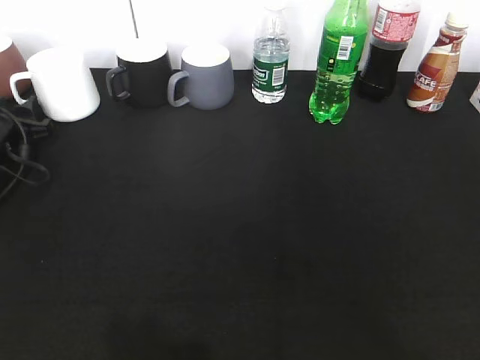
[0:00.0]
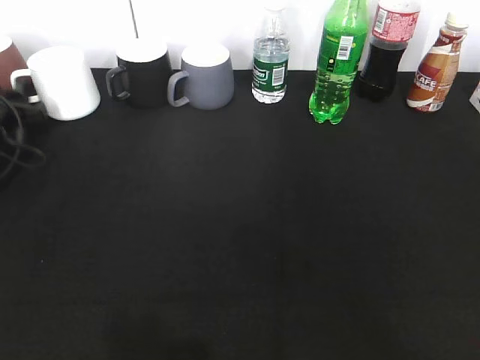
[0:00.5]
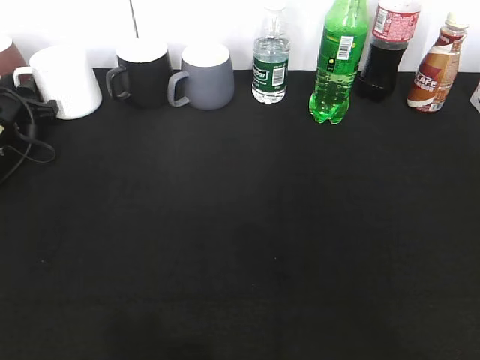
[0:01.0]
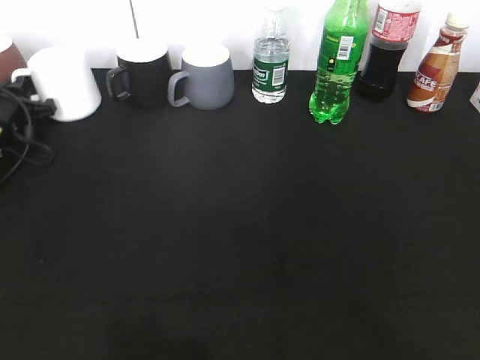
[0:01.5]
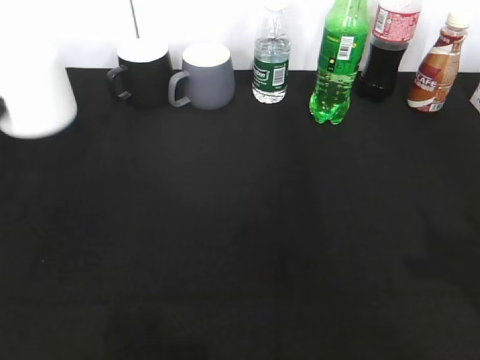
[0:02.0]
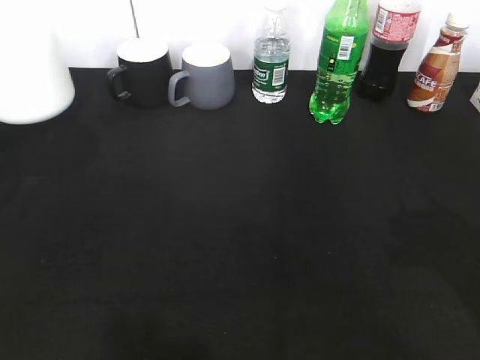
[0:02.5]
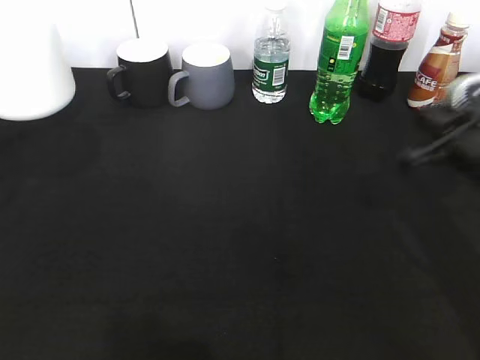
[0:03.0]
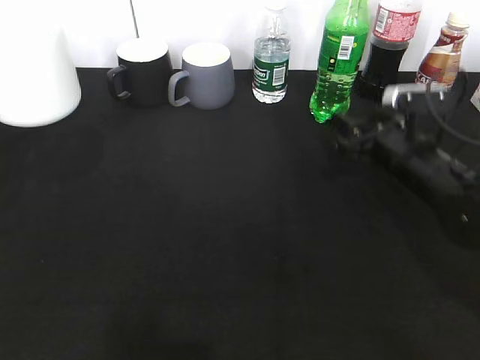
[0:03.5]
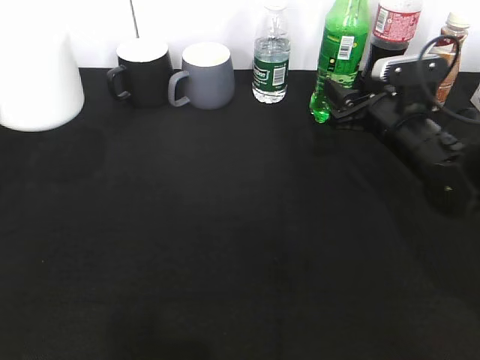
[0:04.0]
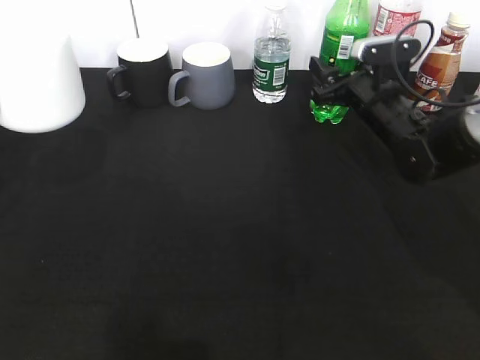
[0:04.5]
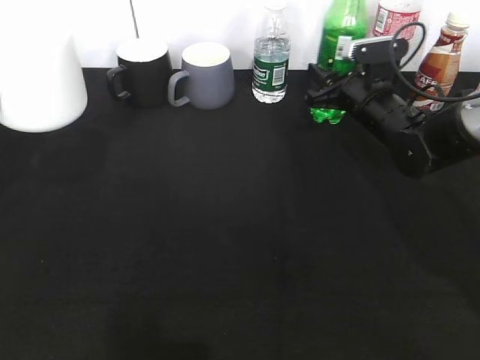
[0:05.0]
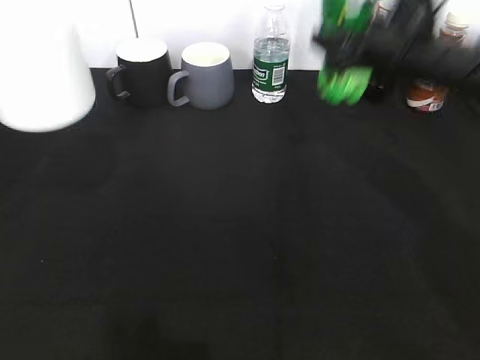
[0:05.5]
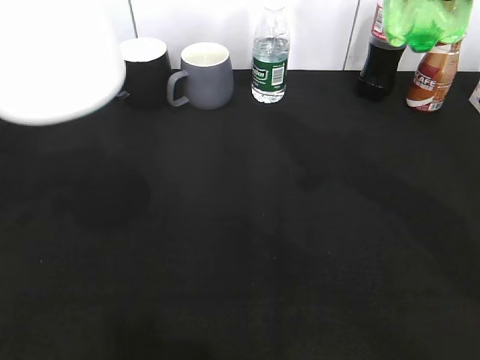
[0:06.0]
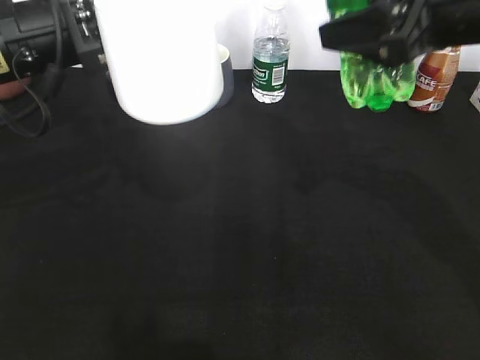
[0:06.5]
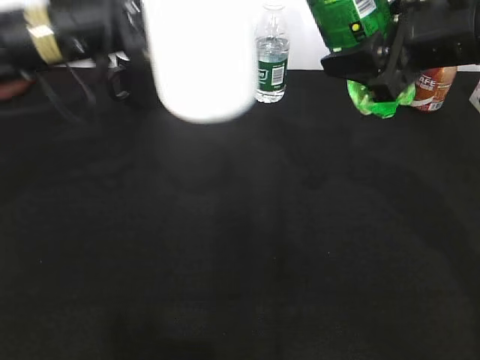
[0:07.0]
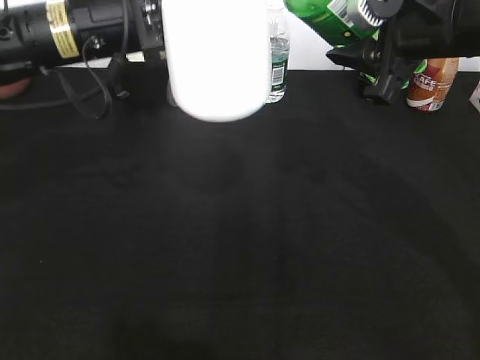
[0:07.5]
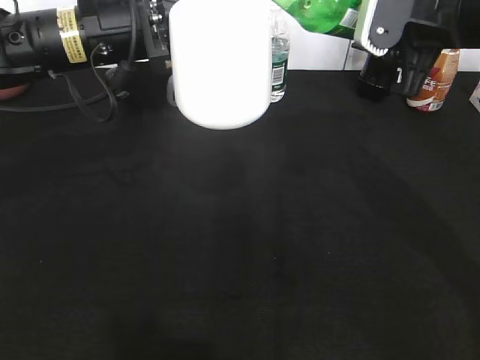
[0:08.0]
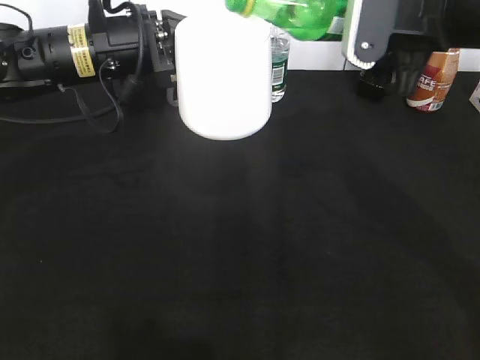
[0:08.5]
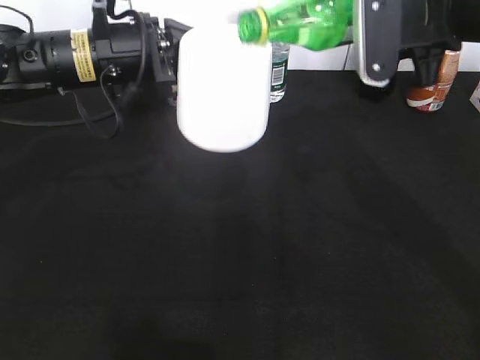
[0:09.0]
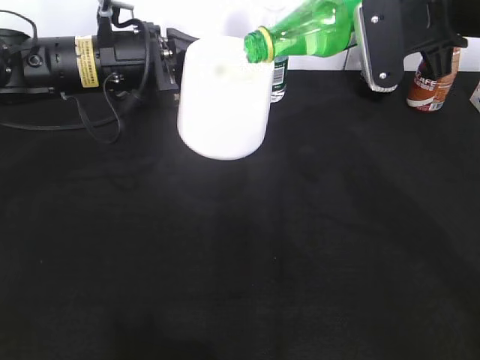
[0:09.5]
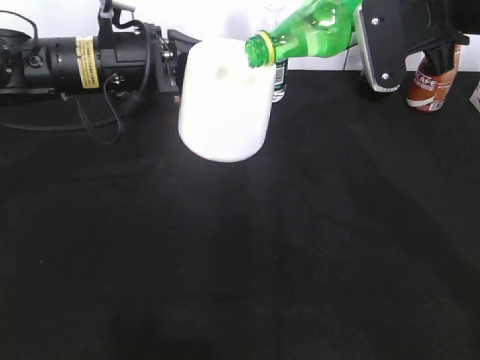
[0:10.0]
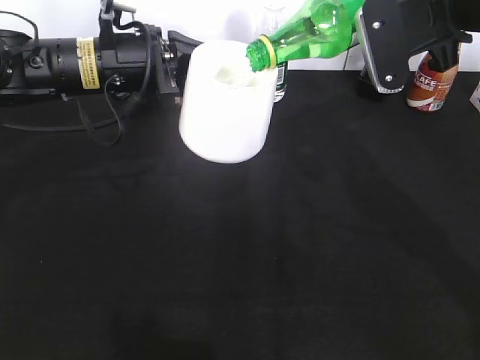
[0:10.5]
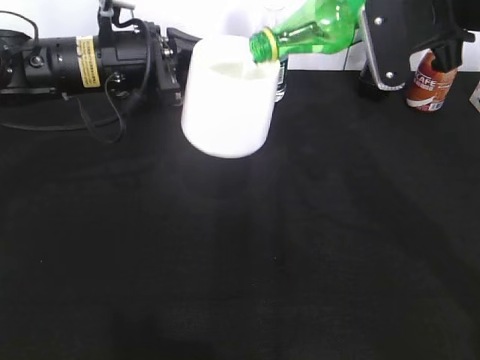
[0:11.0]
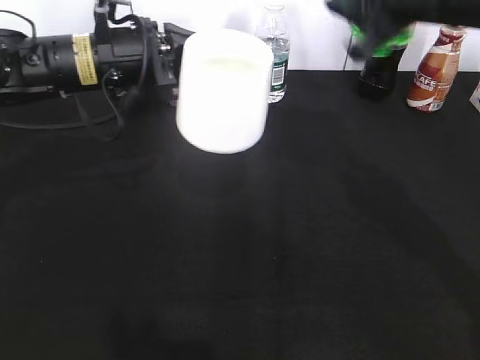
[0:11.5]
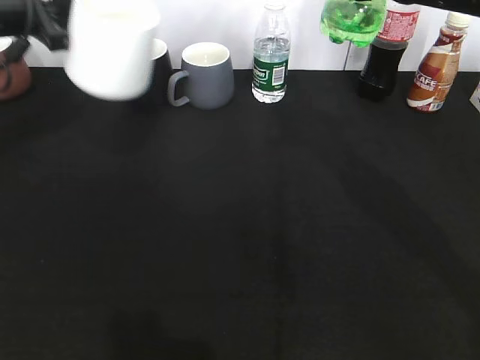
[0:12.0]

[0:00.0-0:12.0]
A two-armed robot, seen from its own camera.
Step, 0:02.5 to 0:05.0: Grasp the bottle with sprite with right gripper.
Step, 0:05.5 to 0:09.5: Pour the sprite from bottle to cup with right gripper.
0:00.0 to 0:02.0: The left gripper is displaced upward and backward by about 15 cm, and closes its fingers.
0:02.0 to 0:04.0: The right gripper moves forward and downward, approximately 35 cm, and opens; the left gripper moves some 5 cm.
0:04.0 to 0:06.0: The left gripper travels upward by approximately 5 cm, while the right gripper travels upward and backward by about 30 cm.
0:06.0 to 0:08.0: The left gripper shifts some 20 cm forward, to the right and downward; the right gripper is displaced downward and forward by approximately 10 cm.
0:10.0 to 0:12.0: The left gripper heads to the left, covering approximately 15 cm.

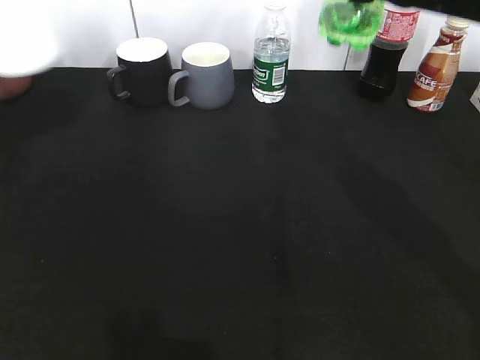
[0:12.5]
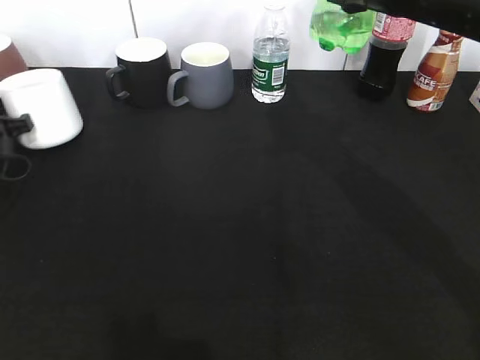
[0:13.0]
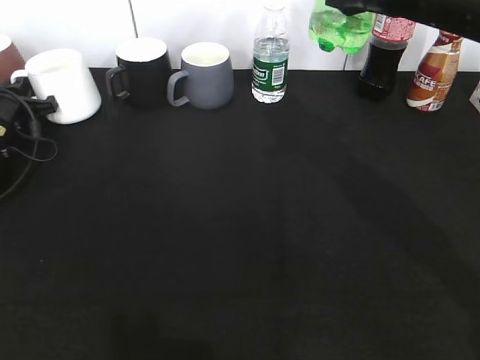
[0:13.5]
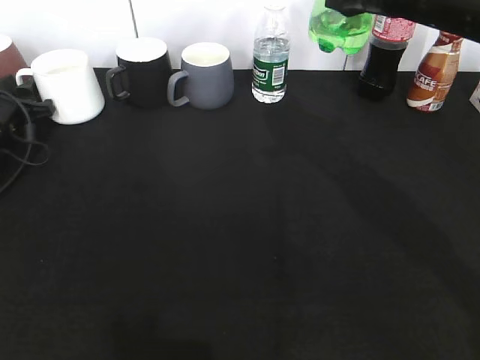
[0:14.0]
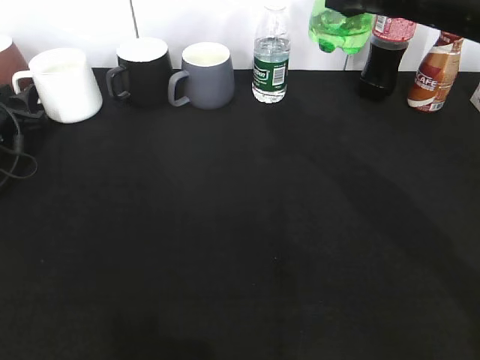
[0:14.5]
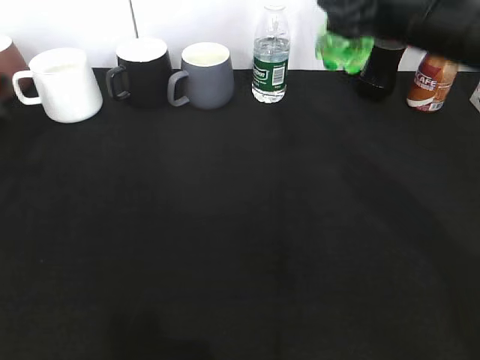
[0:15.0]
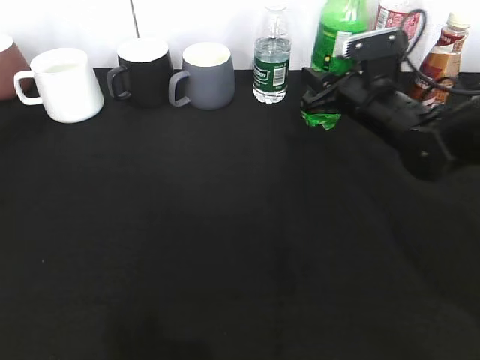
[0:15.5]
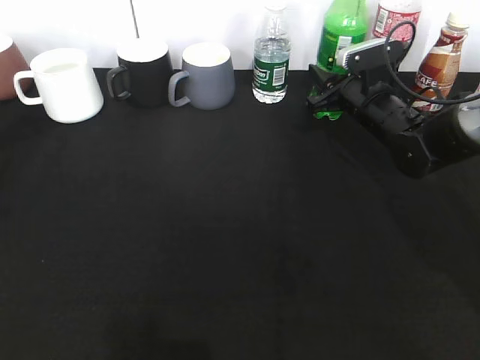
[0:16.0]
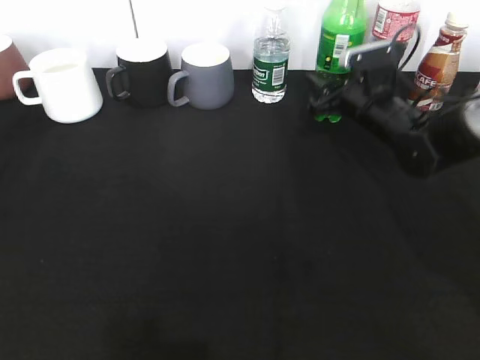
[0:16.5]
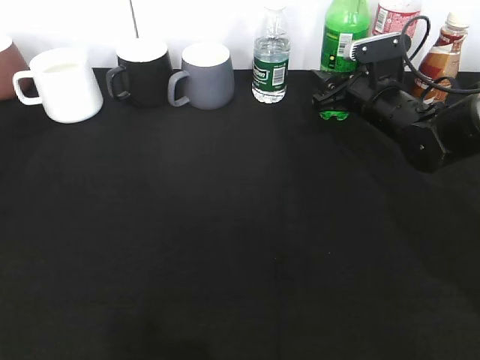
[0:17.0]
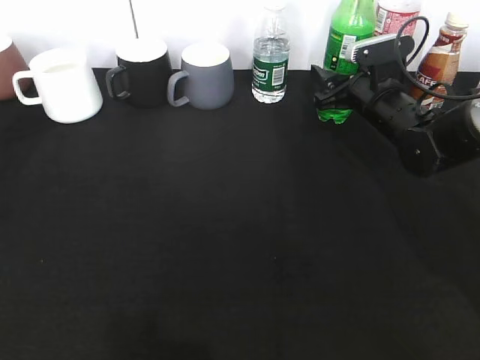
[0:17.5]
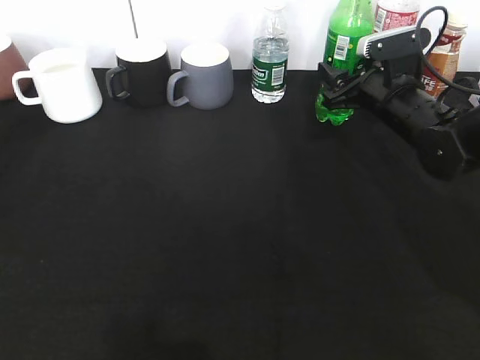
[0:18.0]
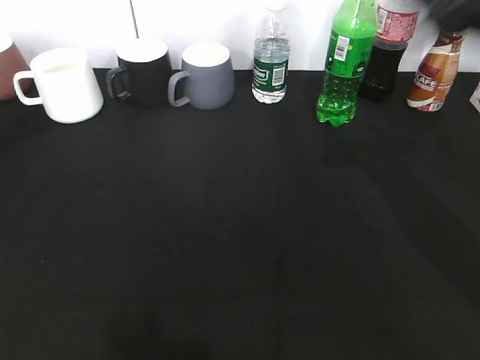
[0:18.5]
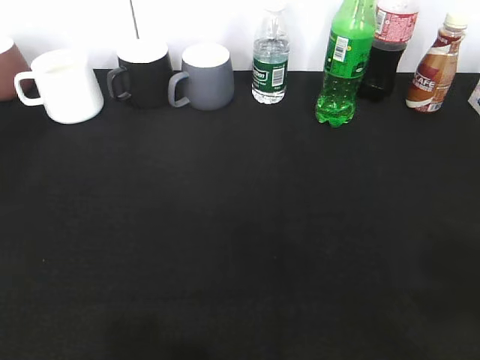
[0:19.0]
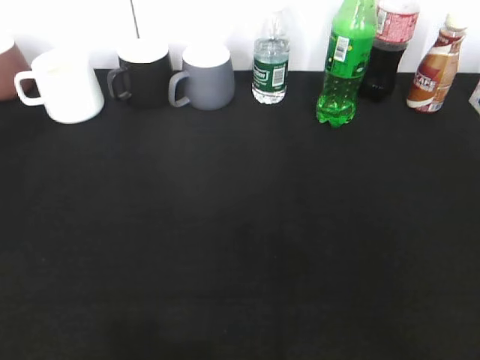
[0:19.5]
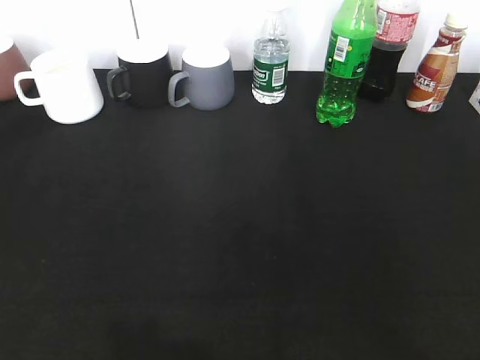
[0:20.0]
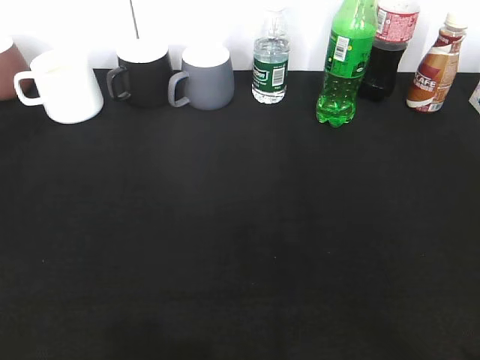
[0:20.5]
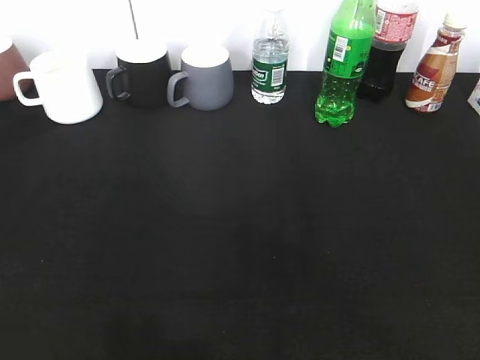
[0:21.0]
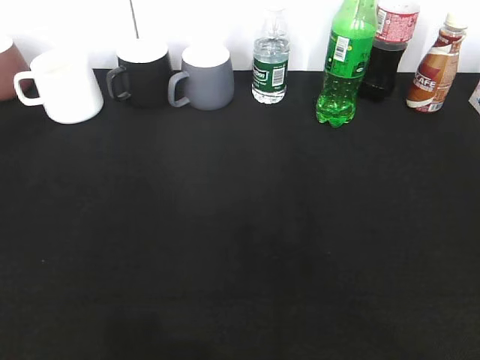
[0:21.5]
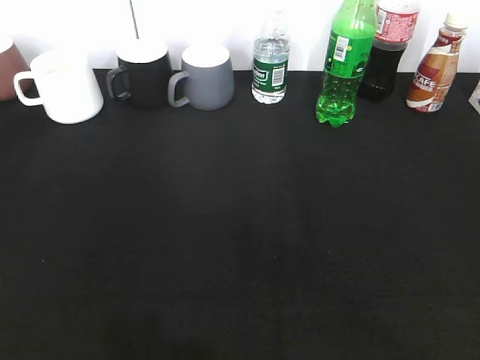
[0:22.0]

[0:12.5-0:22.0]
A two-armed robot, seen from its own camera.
Step, 0:12.5 to 0:14.5: Place the white cup on the table with left gripper.
Step, 0:15.5 to 0:18.5: Place the sprite bottle on the table with right gripper.
0:12.5 to 0:14.5: The left gripper is displaced downward and forward by some 15 cm, and opens up.
0:14.5 to 0:16.5: The left gripper goes about 35 cm backward and upward, while the right gripper shifts roughly 25 cm downward and forward.
0:16.5 to 0:18.0: The grippers stay close to where they were, moving slightly.
0:18.0 to 0:20.0: The right gripper is displaced backward by about 40 cm, and closes up; the left gripper goes approximately 15 cm backward, and closes and opens again.

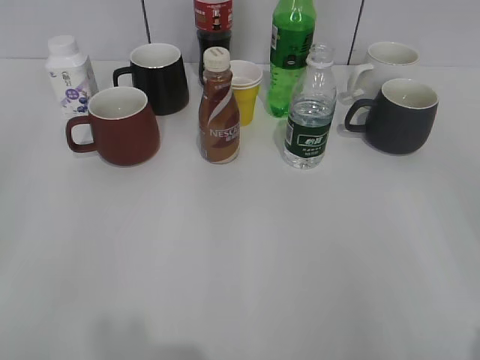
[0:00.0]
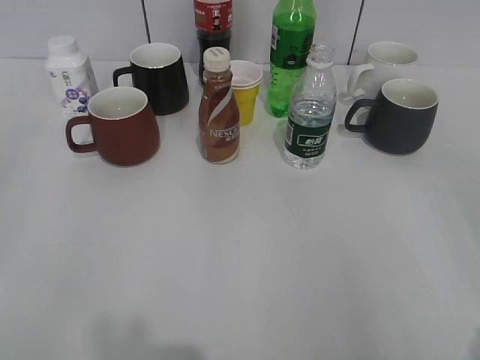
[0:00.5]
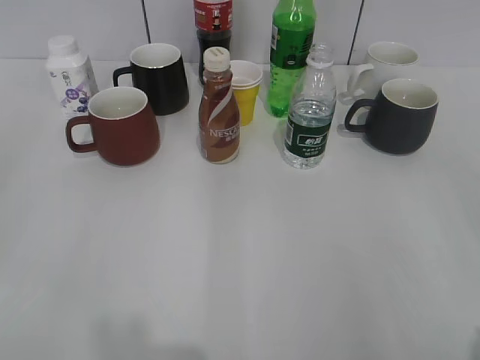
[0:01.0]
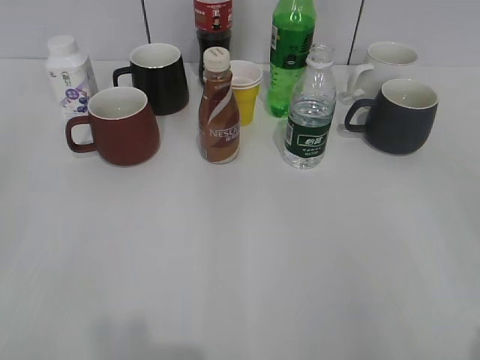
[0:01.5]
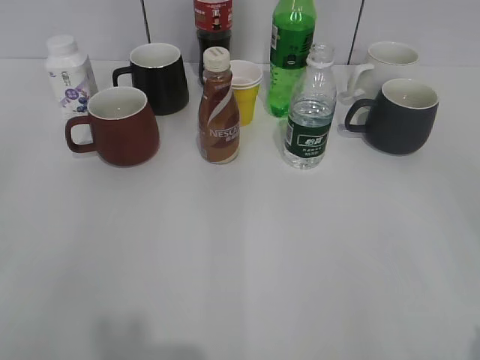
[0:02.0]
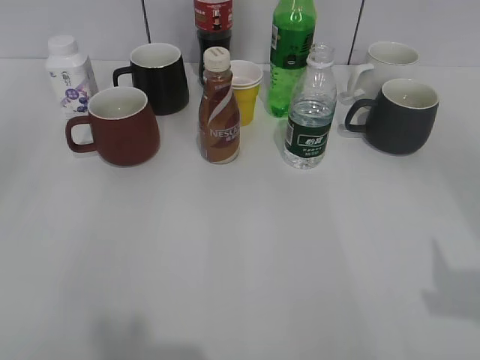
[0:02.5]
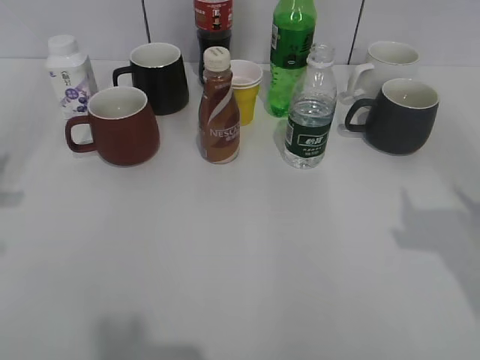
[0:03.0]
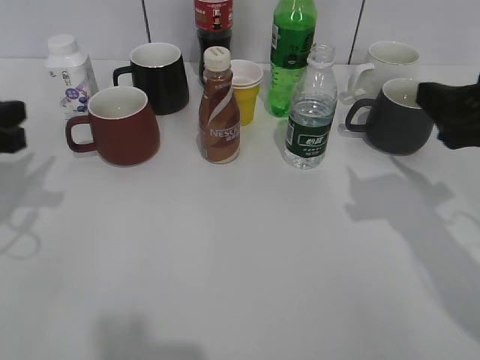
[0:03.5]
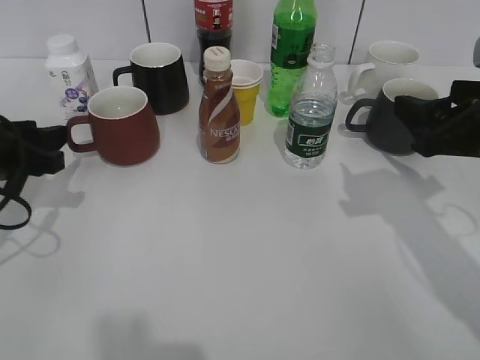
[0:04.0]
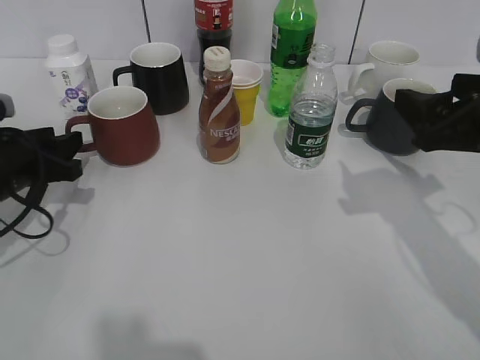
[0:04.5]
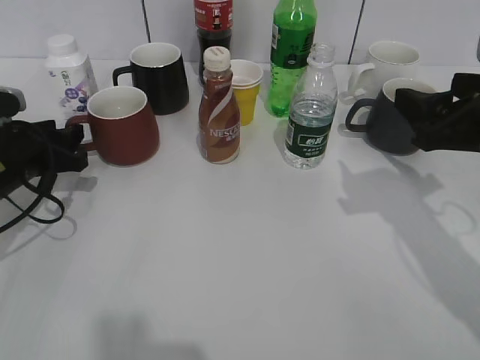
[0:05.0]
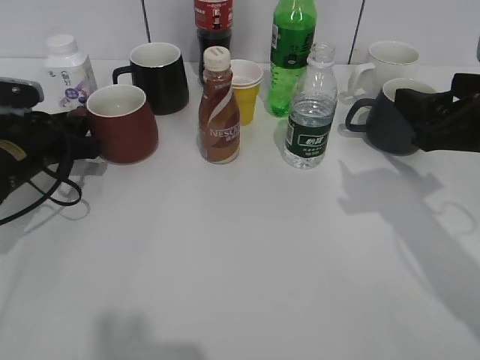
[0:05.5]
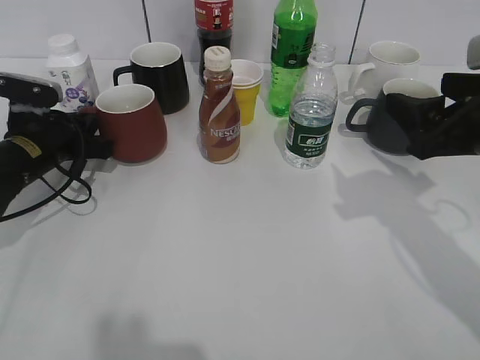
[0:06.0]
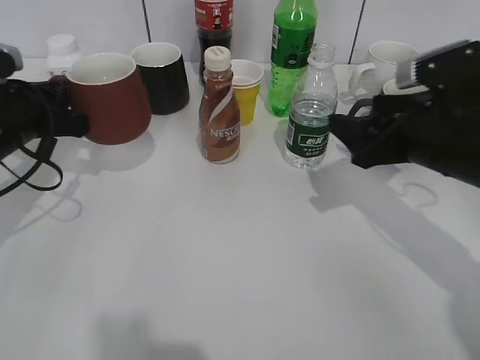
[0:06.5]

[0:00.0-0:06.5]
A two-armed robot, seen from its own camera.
Step, 0:02.0 to 0:05.5: Grasp the red cup with left gripper.
Step, 0:06.0 to 0:06.5: Lift the red cup with left gripper.
0:02.0 to 0:04.5: The left gripper travels forward and downward by some 30 cm, and opens its fingers. Meanwhile the right gripper shifts roughly 25 cm forward.
0:04.5 to 0:06.5: The left gripper closes. The right gripper moves about 5 cm.
